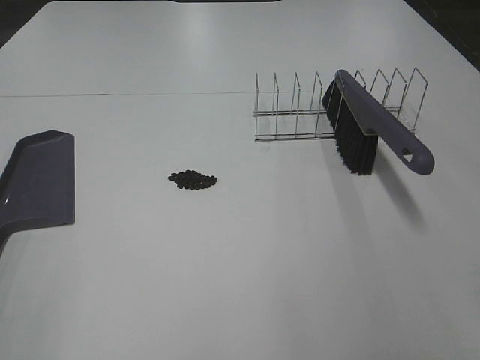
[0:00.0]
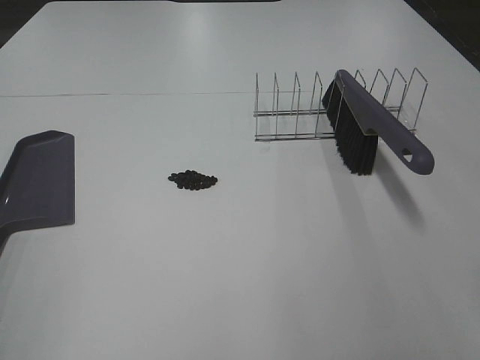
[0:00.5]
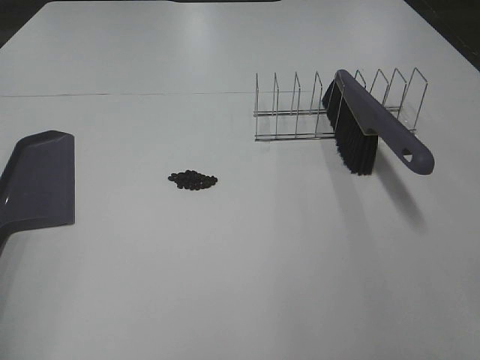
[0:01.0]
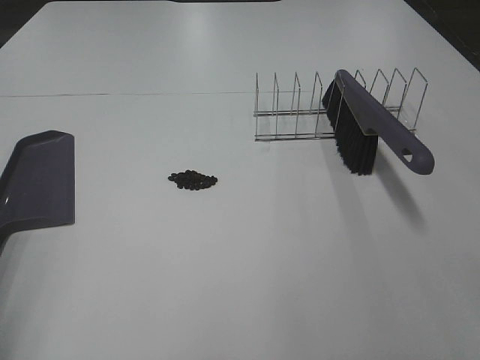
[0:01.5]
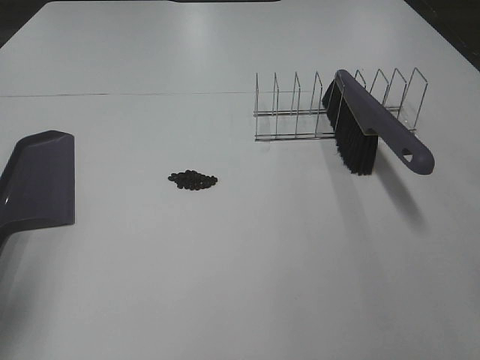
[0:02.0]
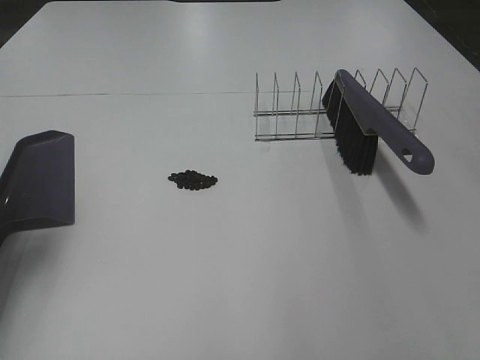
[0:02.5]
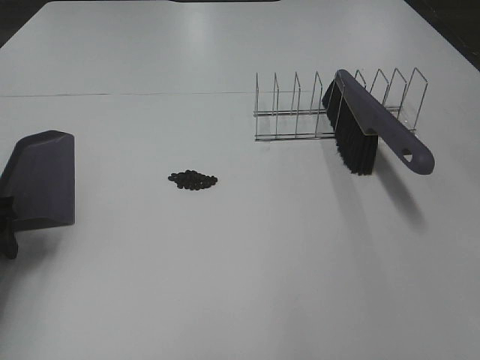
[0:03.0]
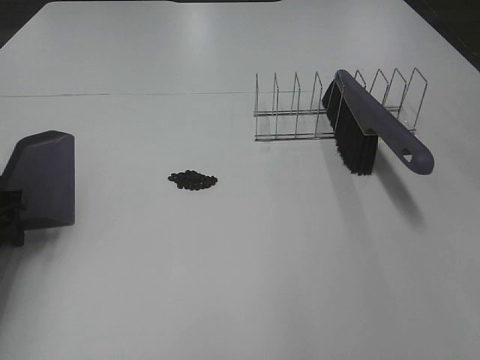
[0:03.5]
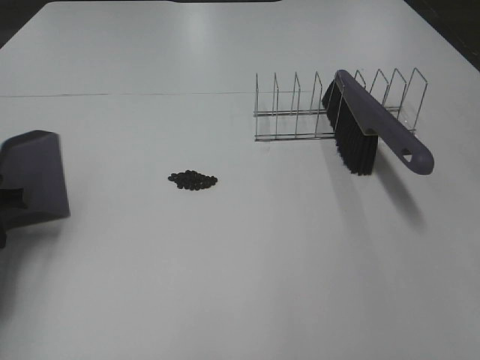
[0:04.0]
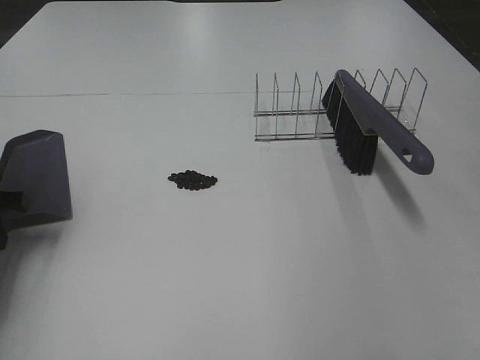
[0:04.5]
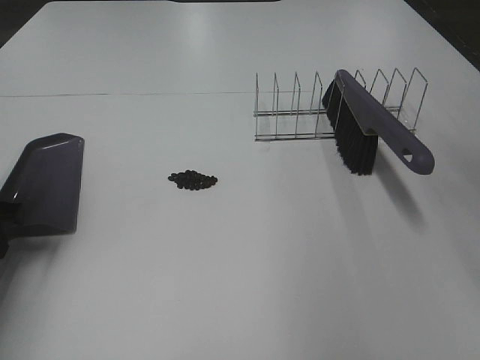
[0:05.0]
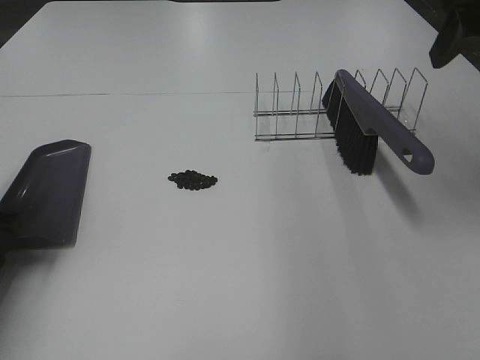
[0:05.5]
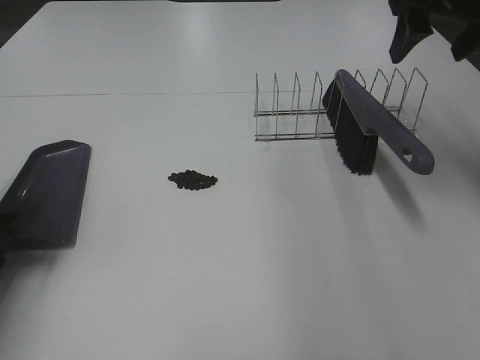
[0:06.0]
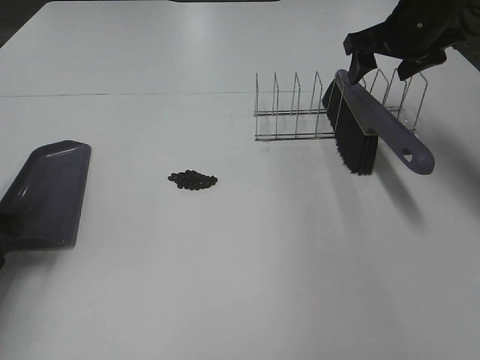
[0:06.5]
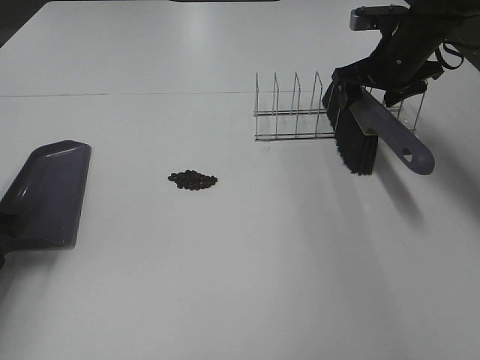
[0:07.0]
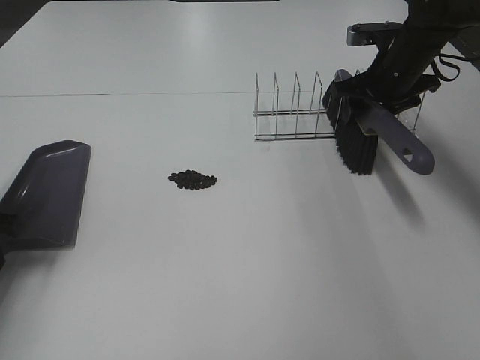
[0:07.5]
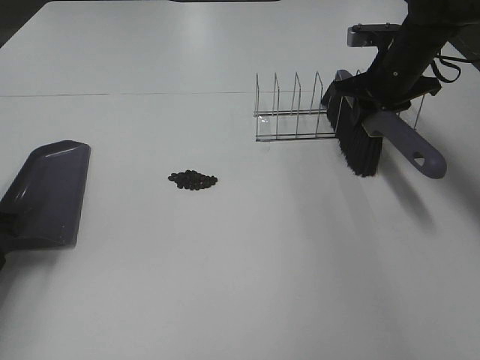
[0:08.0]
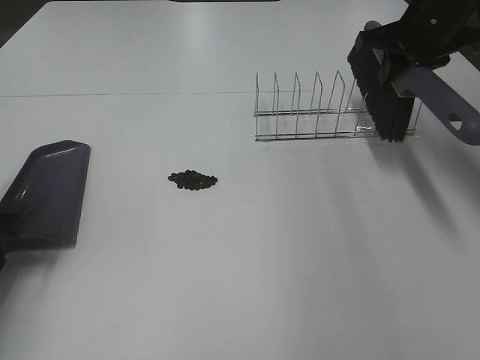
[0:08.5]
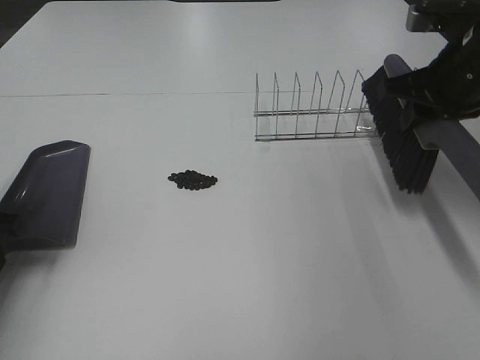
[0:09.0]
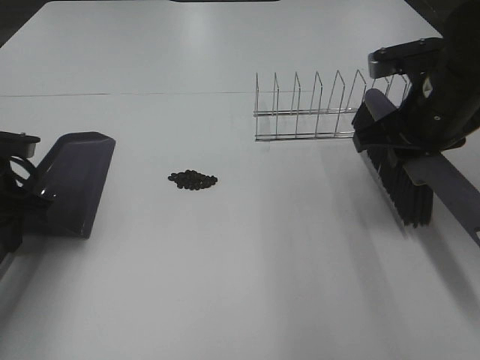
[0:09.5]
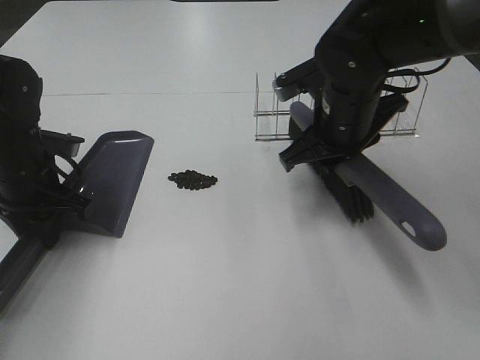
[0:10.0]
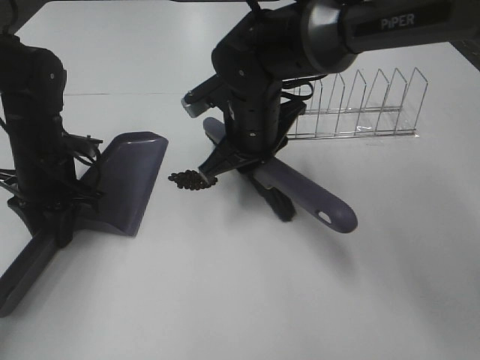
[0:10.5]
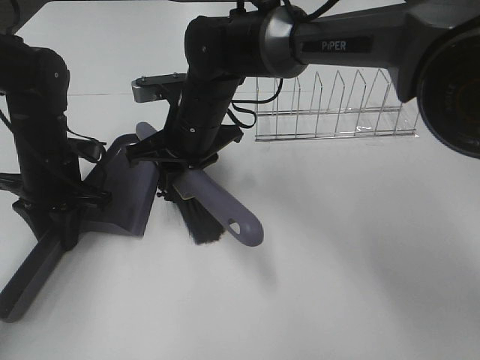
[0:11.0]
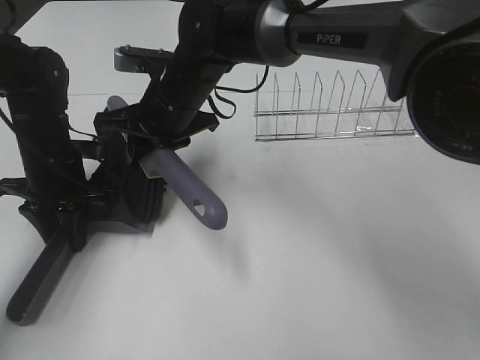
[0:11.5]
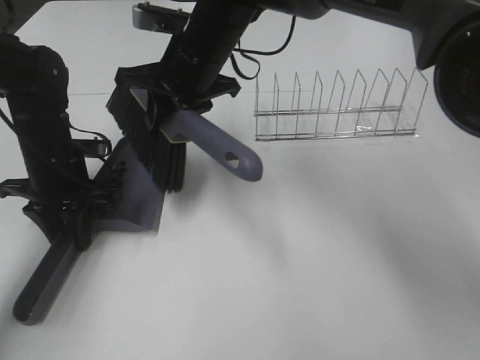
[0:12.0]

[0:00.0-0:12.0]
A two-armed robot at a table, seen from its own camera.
Task of the whole recording: Sweep Coffee Bean.
Step, 0:00.0 to 0:04.0: Left hand: grab the dustpan.
Step, 0:04.0 to 0:07.5: Right hand:grab the broom.
0:00.0 to 0:02.0: The left gripper is displaced forward by some 15 cm.
0:02.0 to 0:04.0: The left gripper moves downward and forward, about 20 cm, and closes.
0:04.0 to 0:06.0: The right gripper heads forward, covering approximately 40 cm.
0:06.0 to 0:08.0: The right gripper travels downward and forward by about 15 cm, and closes up.
0:08.0 to 0:10.0: The right gripper moves to the left and backward, approximately 15 cm; the left gripper travels to the right and forward by approximately 10 cm.
0:10.0 to 0:12.0: The right gripper heads to the left and forward, covering roughly 15 cm.

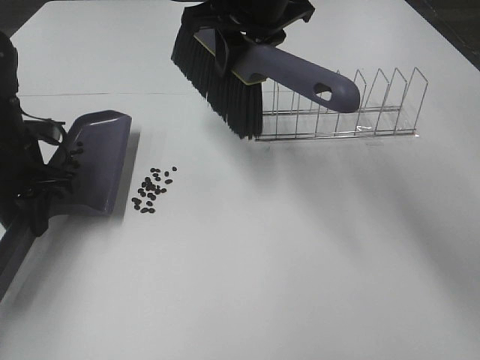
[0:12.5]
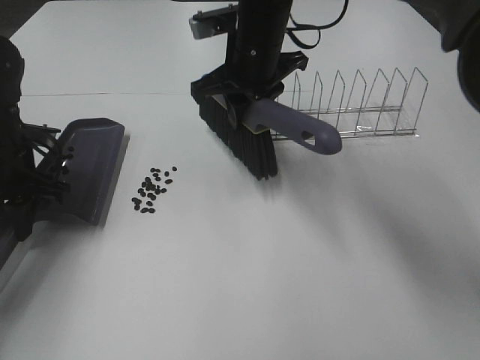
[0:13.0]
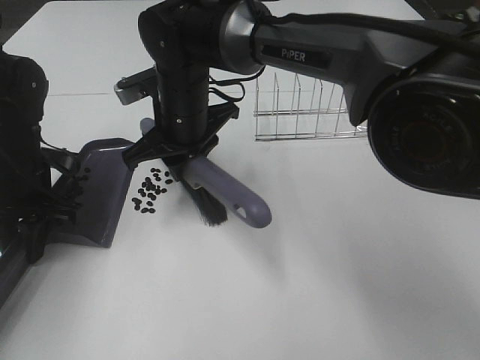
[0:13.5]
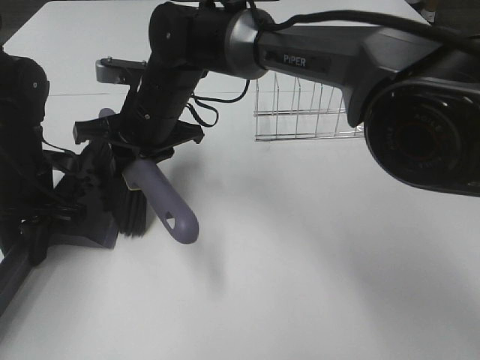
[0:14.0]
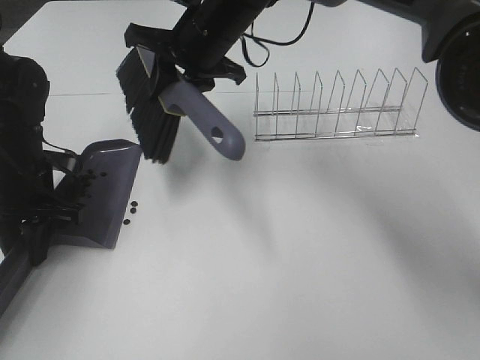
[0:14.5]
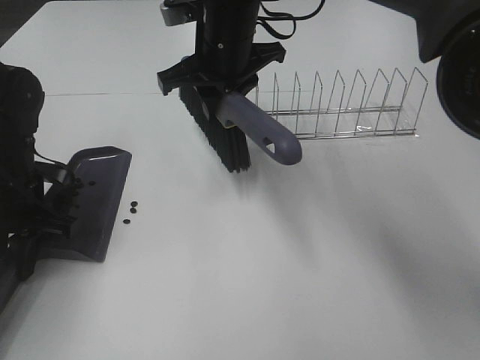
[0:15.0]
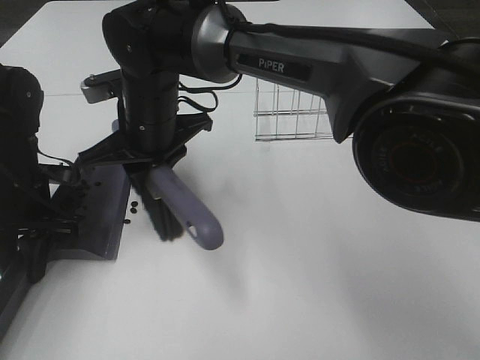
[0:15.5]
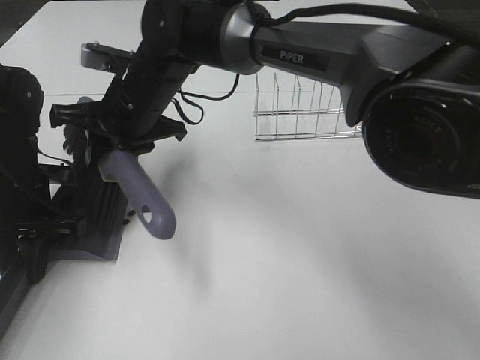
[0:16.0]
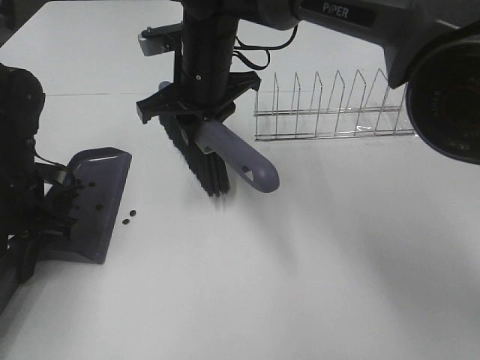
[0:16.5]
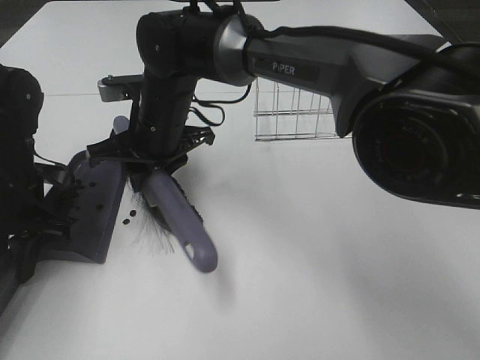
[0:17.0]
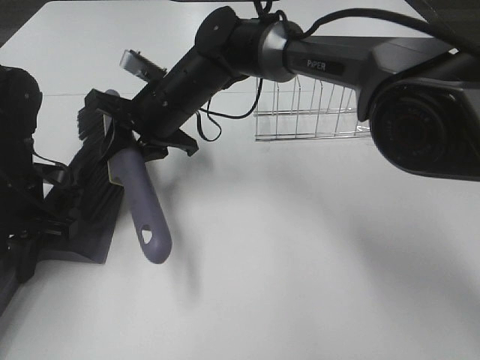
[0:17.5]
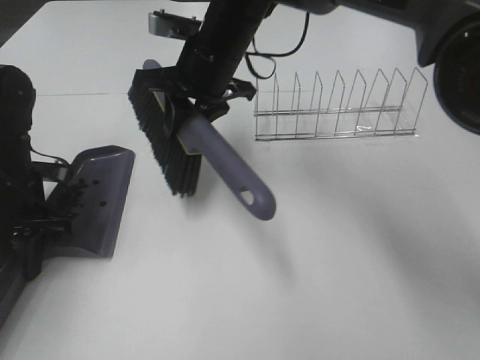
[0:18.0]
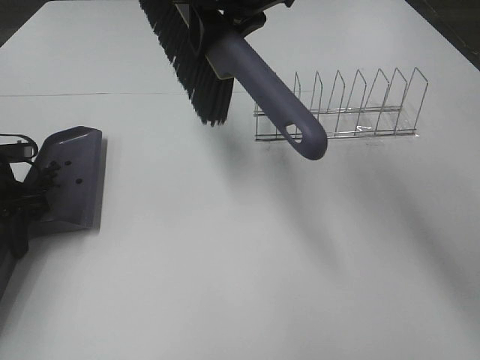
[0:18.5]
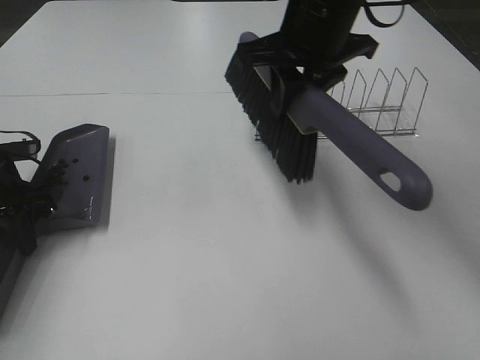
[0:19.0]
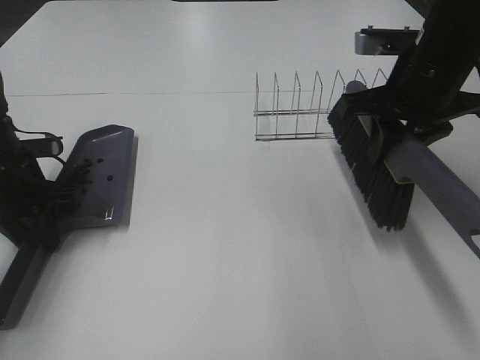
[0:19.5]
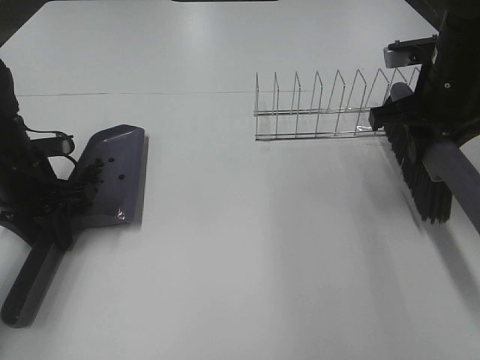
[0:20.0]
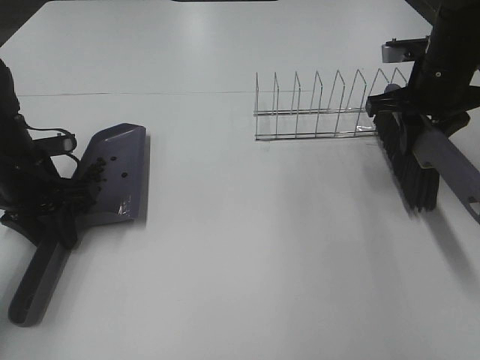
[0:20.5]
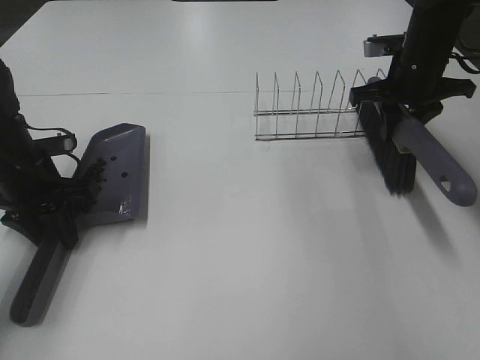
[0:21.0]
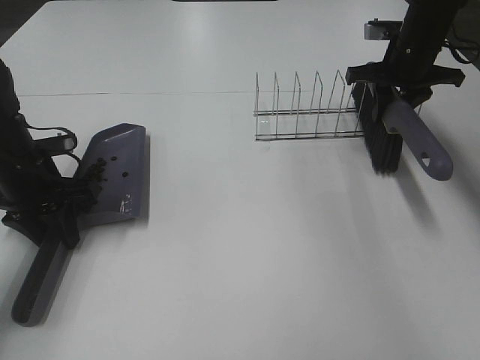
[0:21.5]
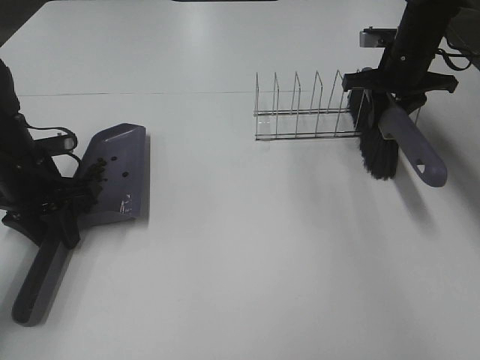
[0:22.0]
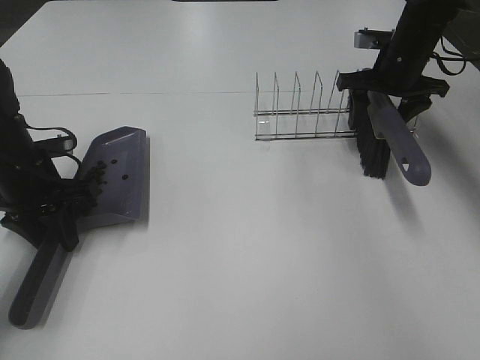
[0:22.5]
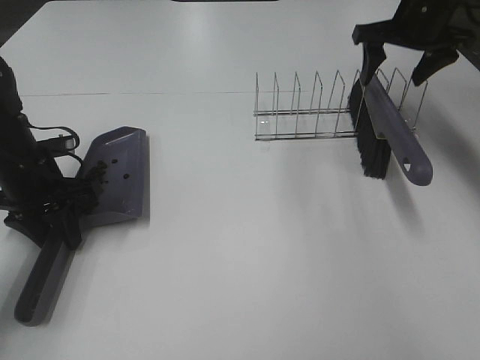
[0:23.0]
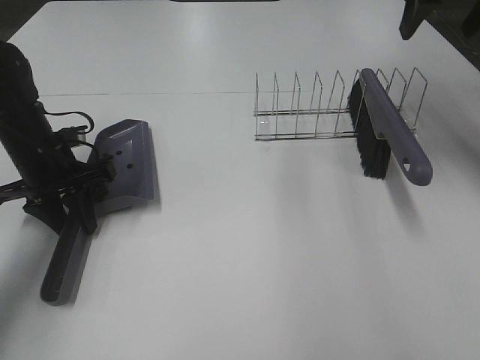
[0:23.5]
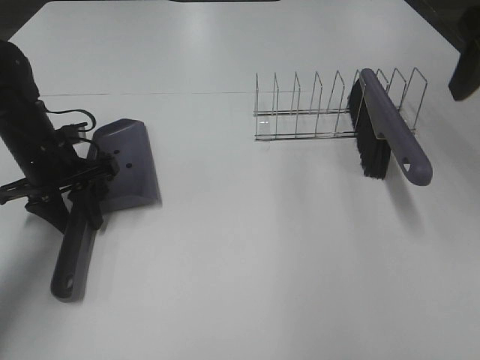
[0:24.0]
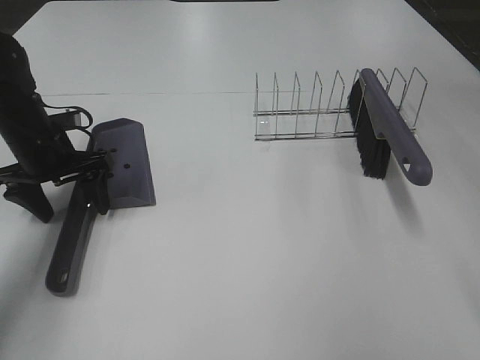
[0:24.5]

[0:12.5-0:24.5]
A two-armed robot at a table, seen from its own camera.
Task of the whole recording: Sweep Coffee Bean.
Step, 0:12.5 to 0:17.5: Right hand:sweep the coffee beans into the dustpan.
Step, 0:18.0 to 0:22.5: Right hand:place the broom on the rack.
0:12.5 to 0:14.5: The right gripper goes about 5 cm downward.
0:14.5 to 0:16.5: The right gripper goes to the left and returns, some 10 cm each way.
0:16.5 to 0:18.5: The left gripper moves roughly 5 cm. Meanwhile the right gripper is displaced upward and to the right by about 15 cm.
0:18.5 to 0:20.5: The right gripper shifts roughly 25 cm to the right and downward.
0:20.5 to 0:22.5: The right gripper is displaced forward by approximately 10 cm, and opens its fingers.
0:22.5 to 0:24.5: The left gripper opens its fingers; the right gripper travels backward and upward by about 35 cm.

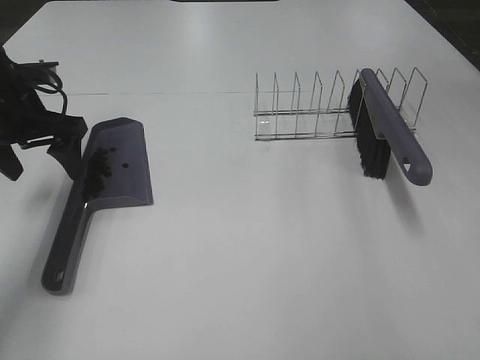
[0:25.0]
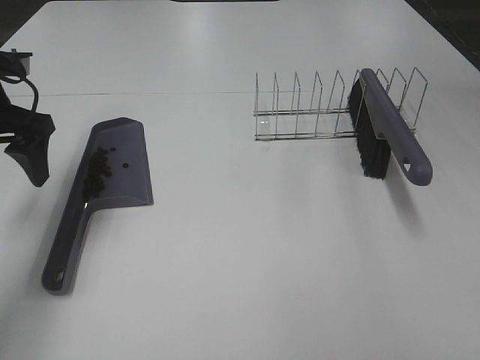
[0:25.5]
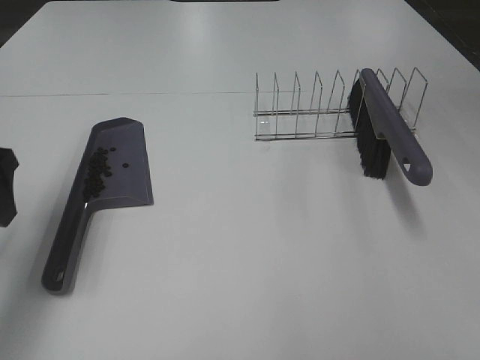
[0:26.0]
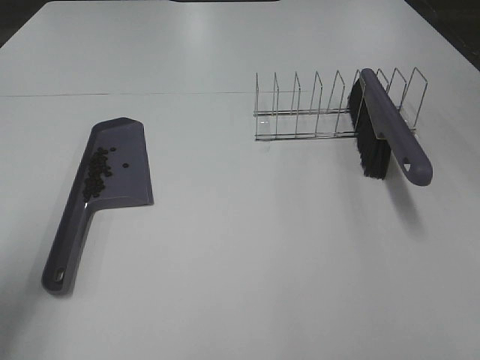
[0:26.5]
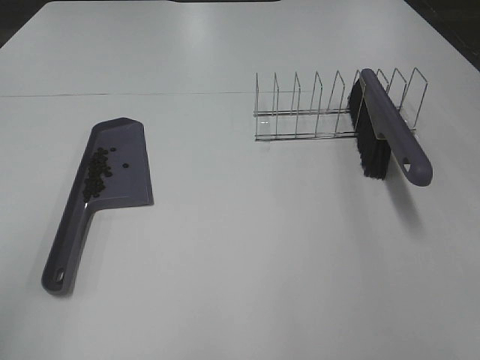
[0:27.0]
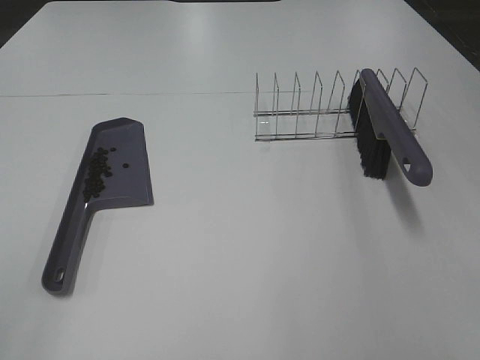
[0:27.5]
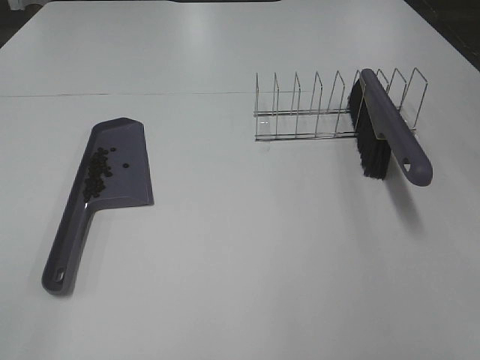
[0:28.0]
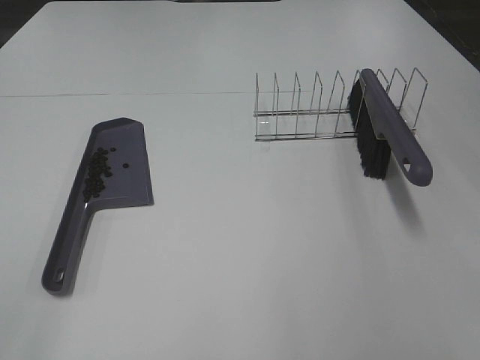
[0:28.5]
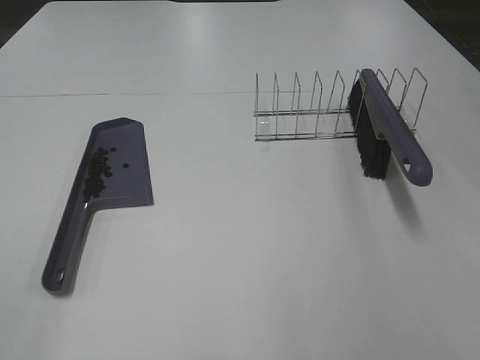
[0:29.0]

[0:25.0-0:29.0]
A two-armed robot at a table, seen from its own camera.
Task of the whole recording: Sweep Coffee Bean.
0:25.0 to 0:27.0: The left gripper heads backward, covering some 30 cm.
